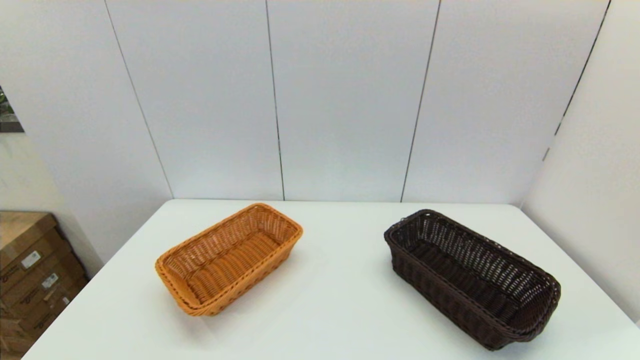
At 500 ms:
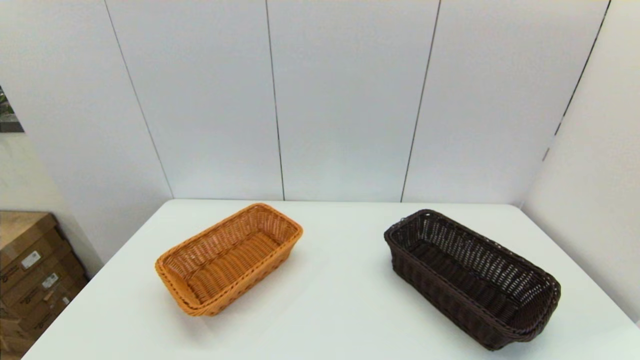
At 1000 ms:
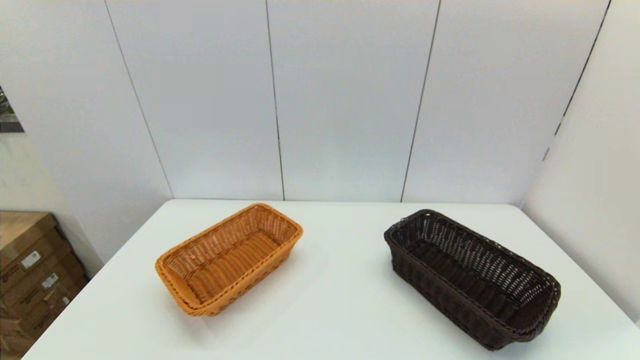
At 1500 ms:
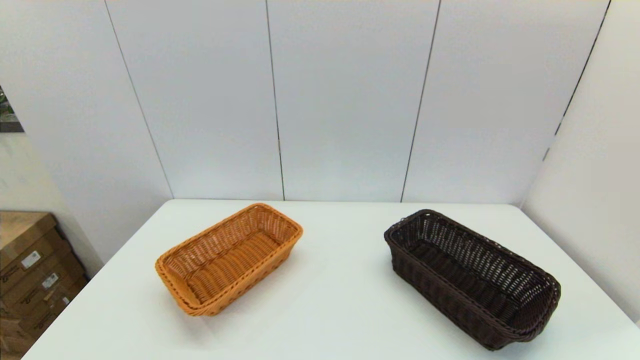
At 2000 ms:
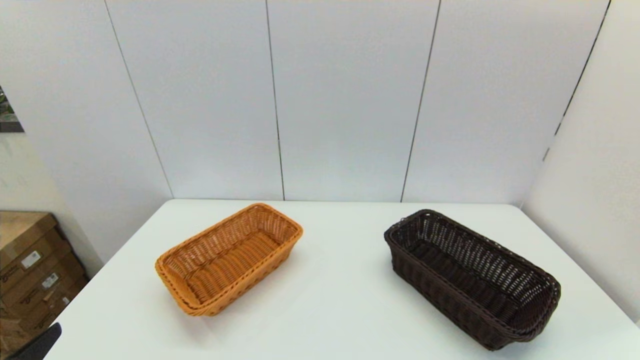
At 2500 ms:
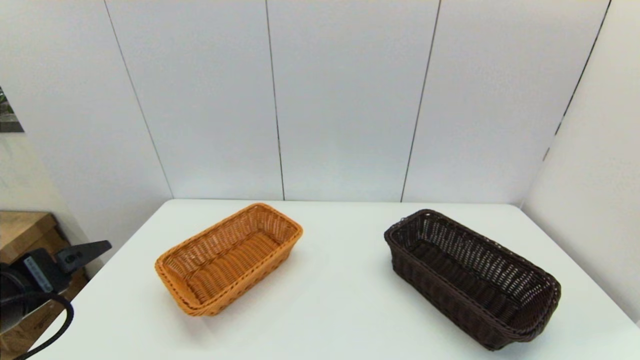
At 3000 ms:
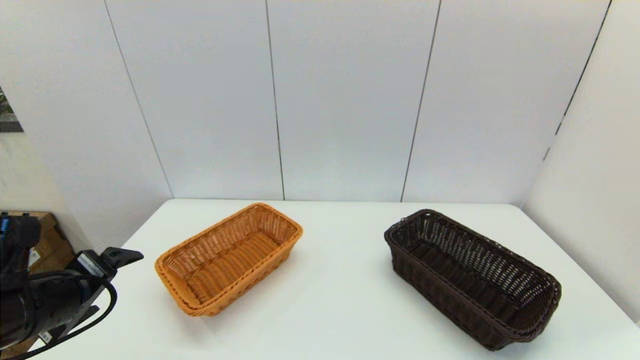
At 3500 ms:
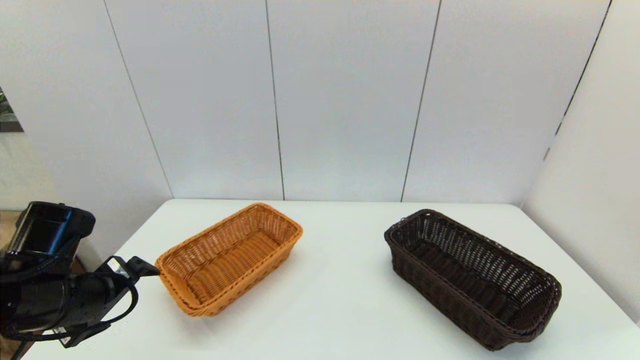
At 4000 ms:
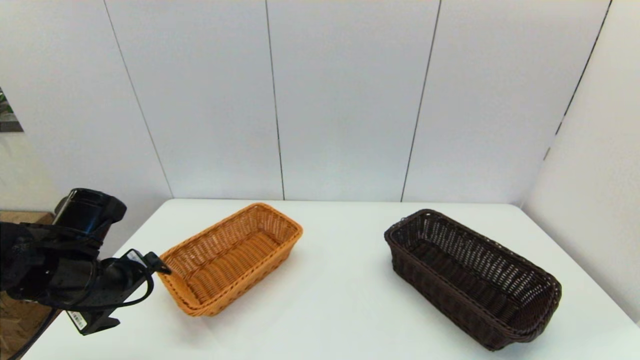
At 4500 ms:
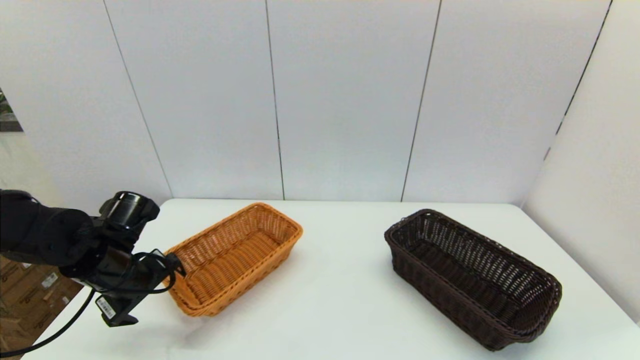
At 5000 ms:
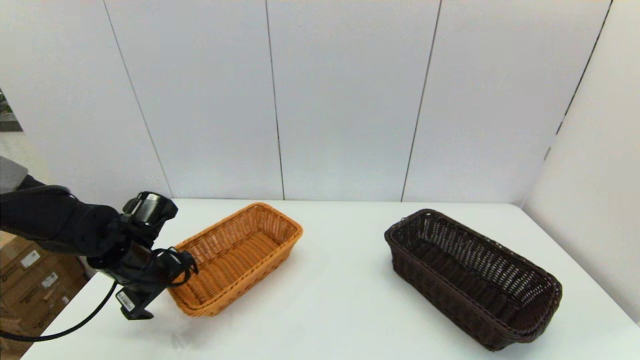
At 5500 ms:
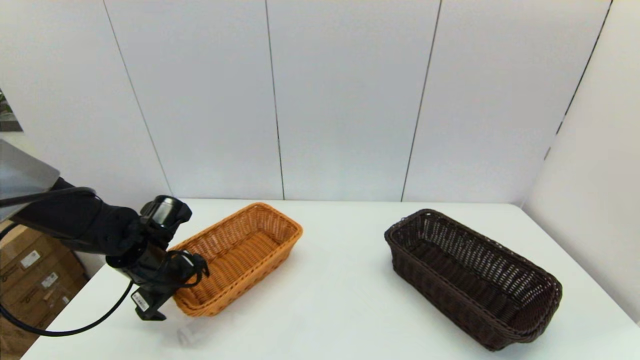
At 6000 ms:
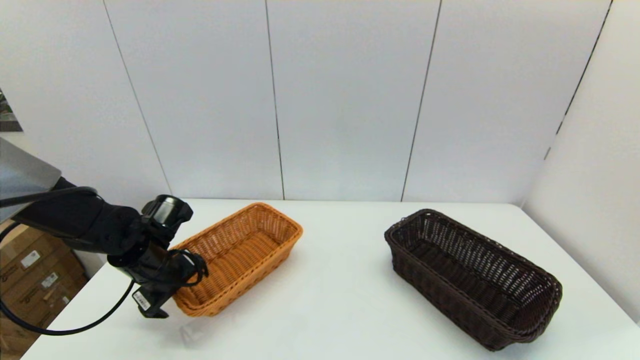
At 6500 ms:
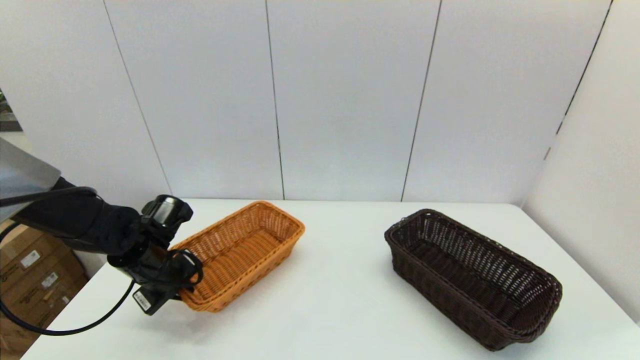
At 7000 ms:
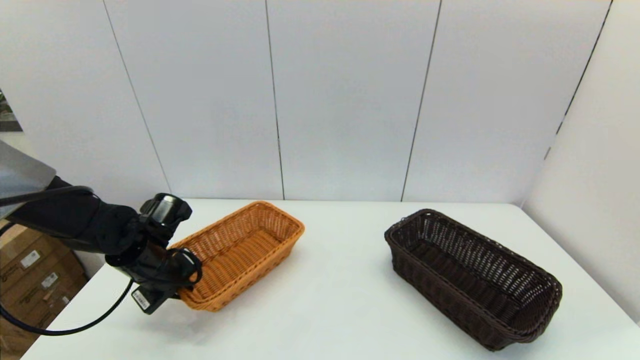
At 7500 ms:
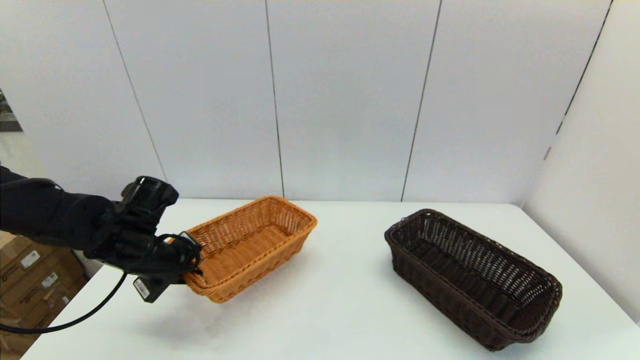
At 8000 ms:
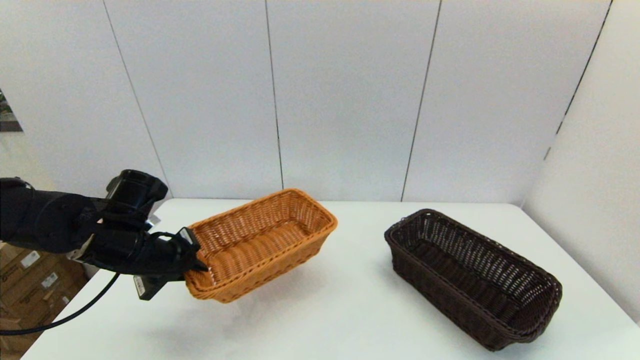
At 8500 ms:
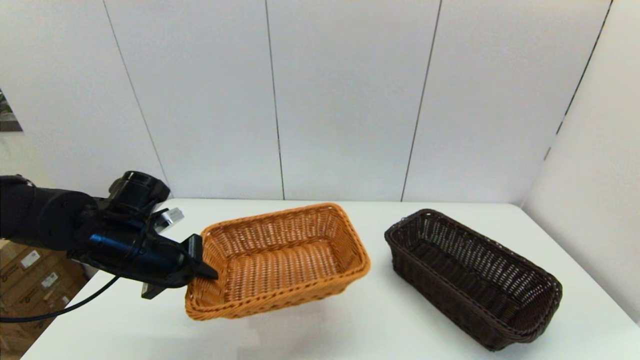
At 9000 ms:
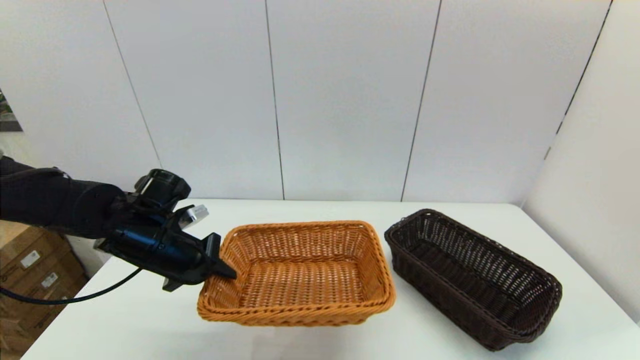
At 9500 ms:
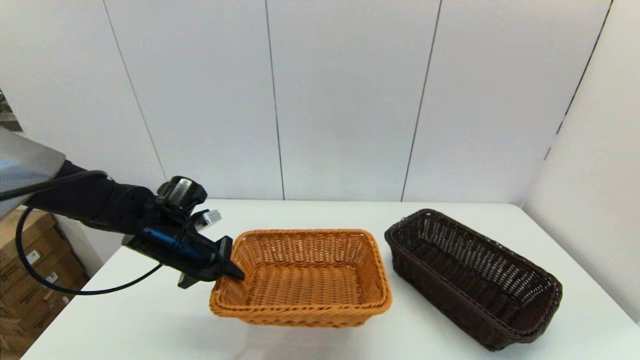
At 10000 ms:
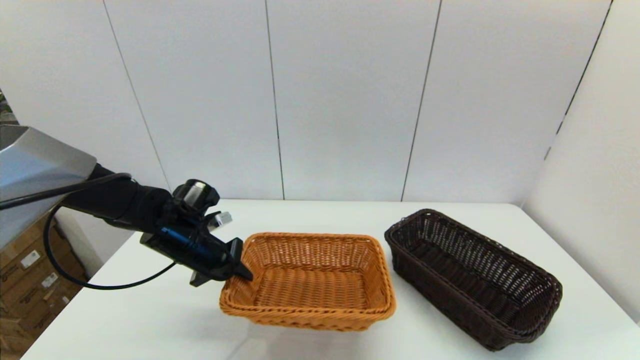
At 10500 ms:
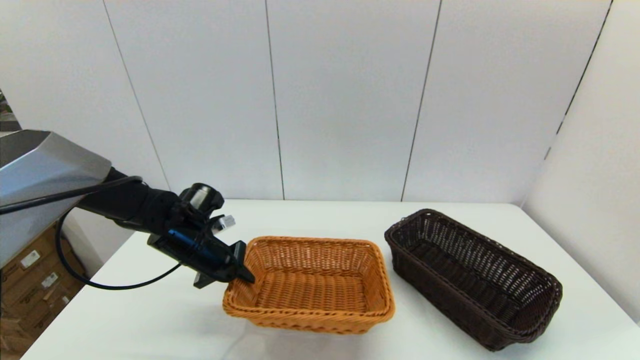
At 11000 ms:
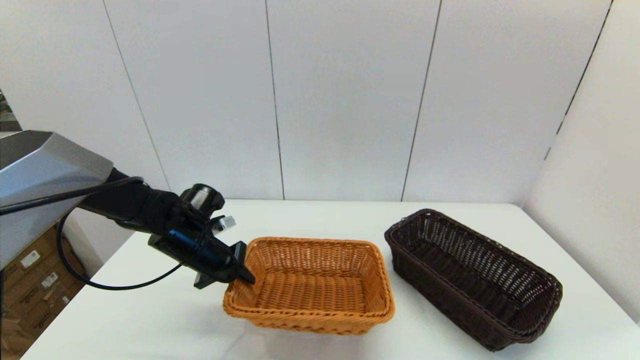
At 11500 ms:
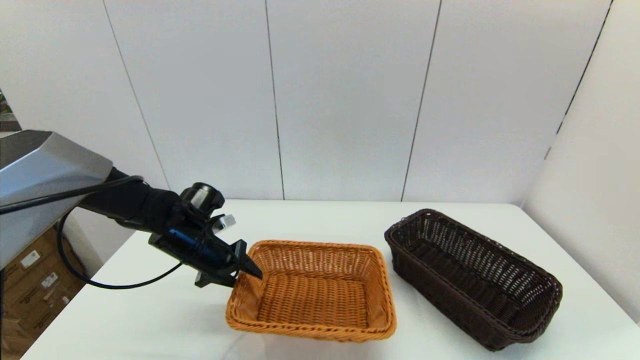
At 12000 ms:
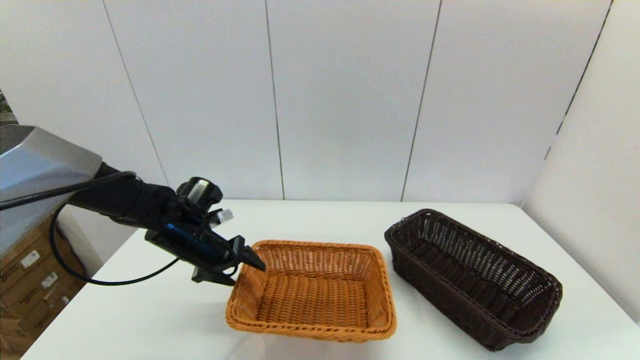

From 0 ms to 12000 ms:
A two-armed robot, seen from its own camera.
Task of the whole recording: stack a basket on top of another basket.
Step, from 2000 ms to 7000 ms: Grasp the light basket with the left gripper.
From 2000 ms to 4000 ms: The left gripper moves forward, approximately 20 cm.
From 4000 ms to 6000 ms: The left gripper moves forward and downward, roughly 10 cm.
From 6000 ms to 8000 ms: The left gripper goes some 5 cm upward, and closes.
From 8000 ms to 10000 ms: The left gripper moves forward, some 5 cm.
From 10000 ms to 12000 ms: The left gripper opens its fingers.

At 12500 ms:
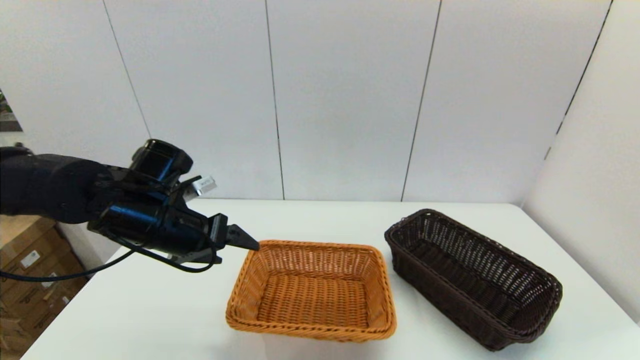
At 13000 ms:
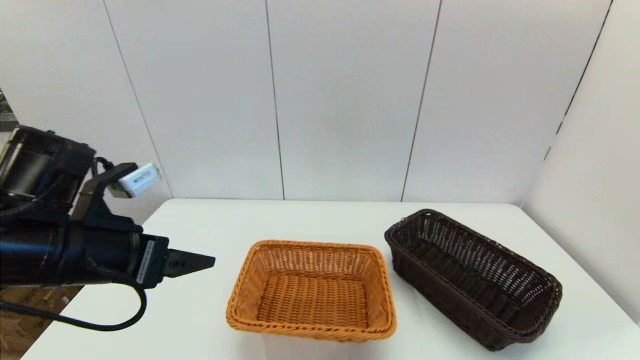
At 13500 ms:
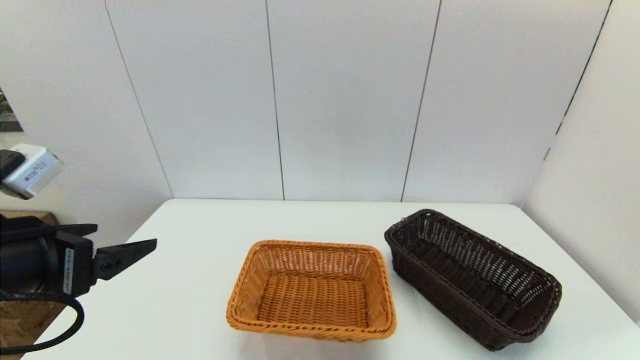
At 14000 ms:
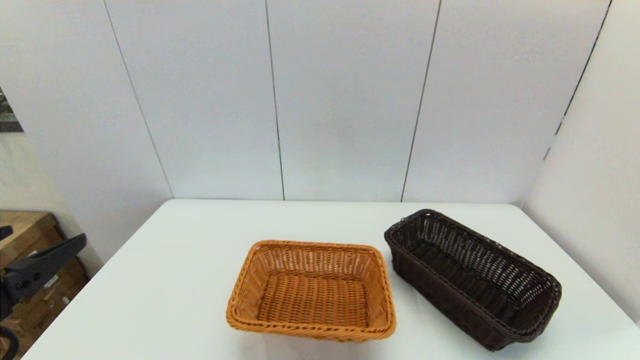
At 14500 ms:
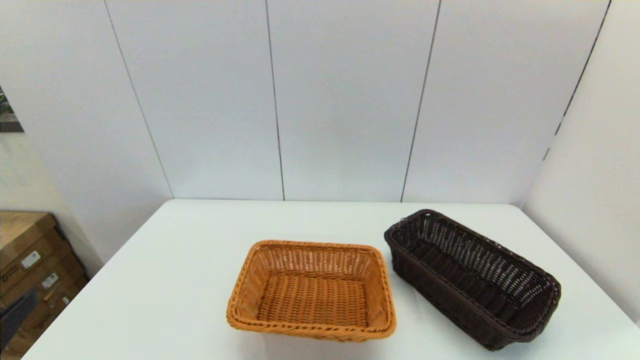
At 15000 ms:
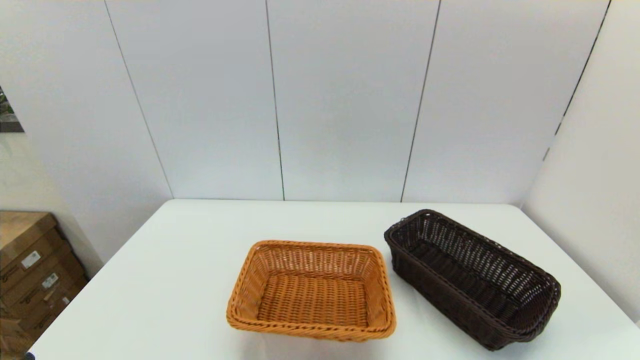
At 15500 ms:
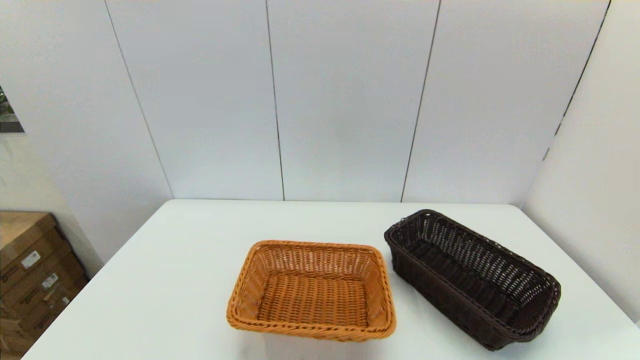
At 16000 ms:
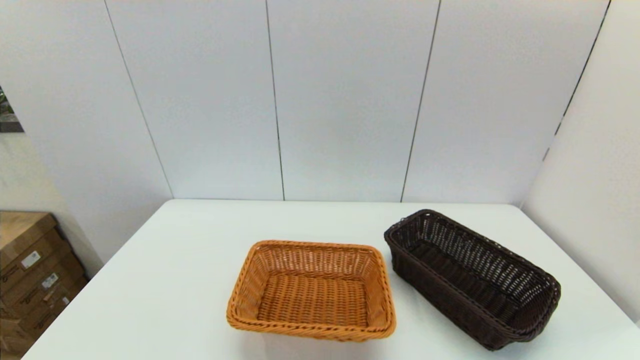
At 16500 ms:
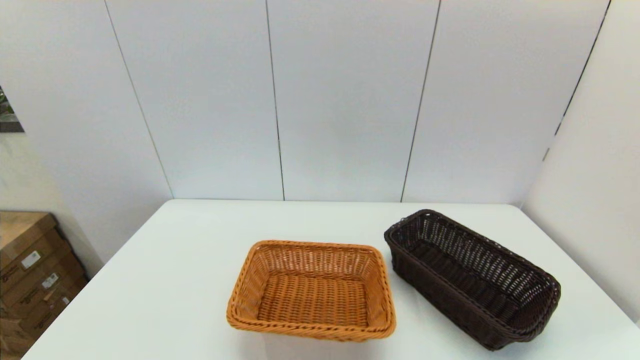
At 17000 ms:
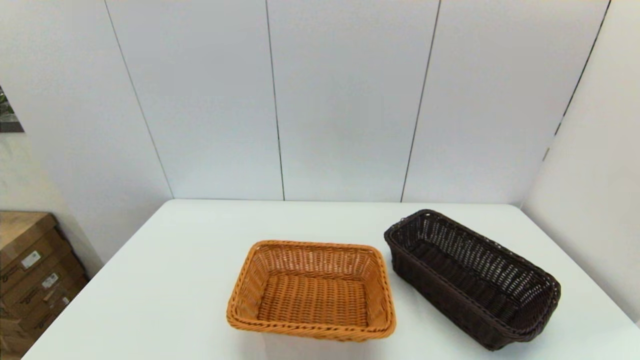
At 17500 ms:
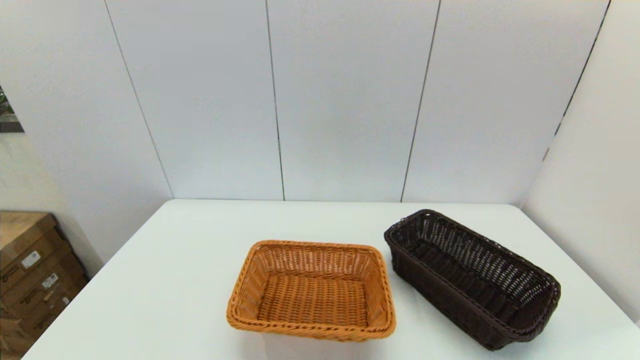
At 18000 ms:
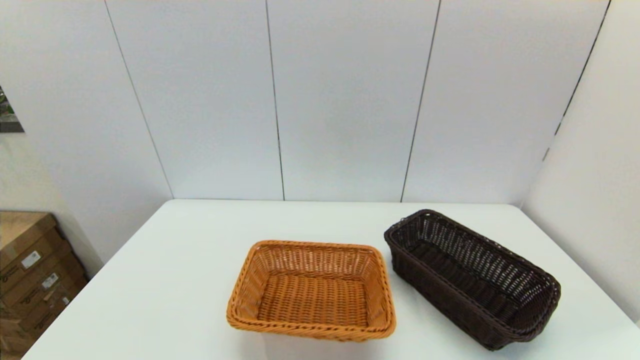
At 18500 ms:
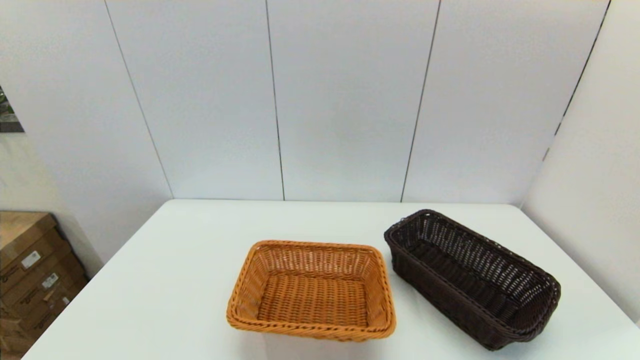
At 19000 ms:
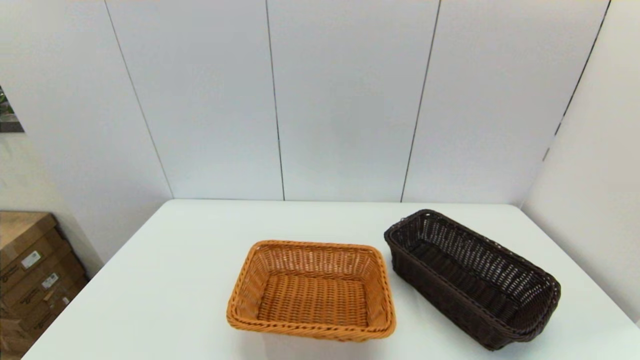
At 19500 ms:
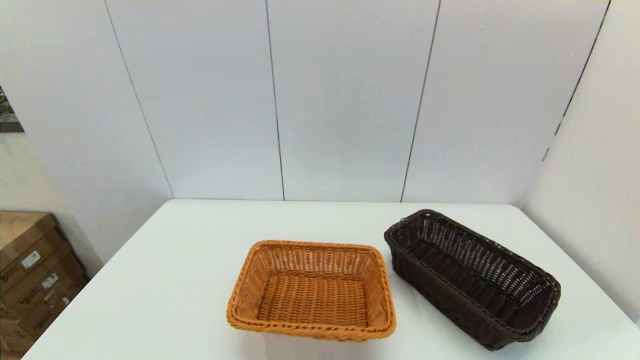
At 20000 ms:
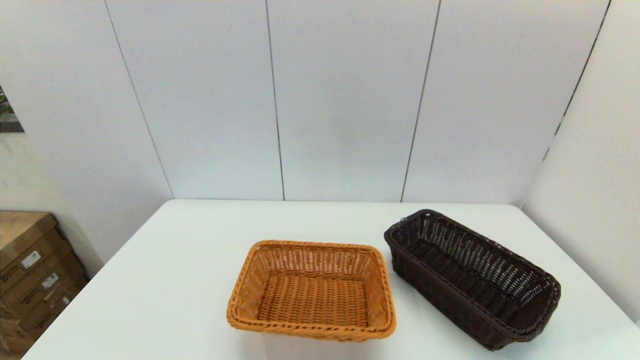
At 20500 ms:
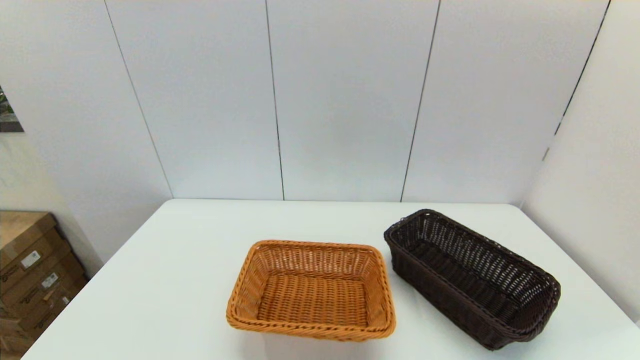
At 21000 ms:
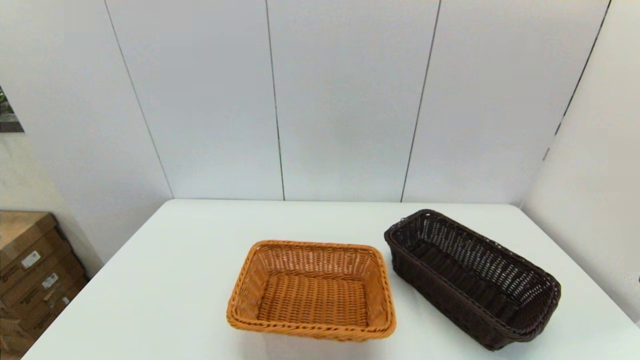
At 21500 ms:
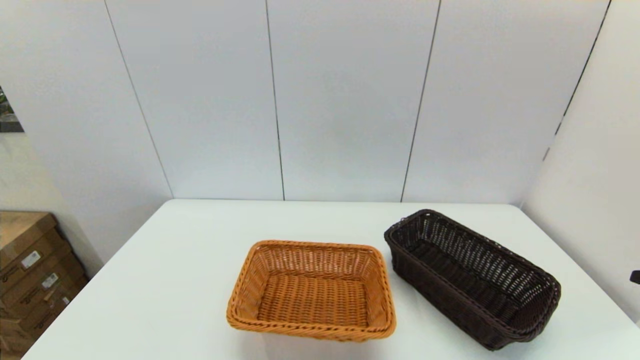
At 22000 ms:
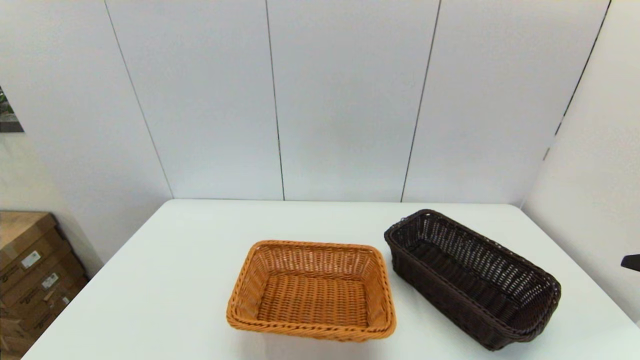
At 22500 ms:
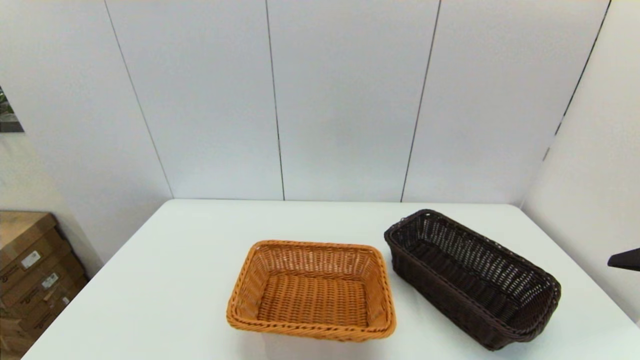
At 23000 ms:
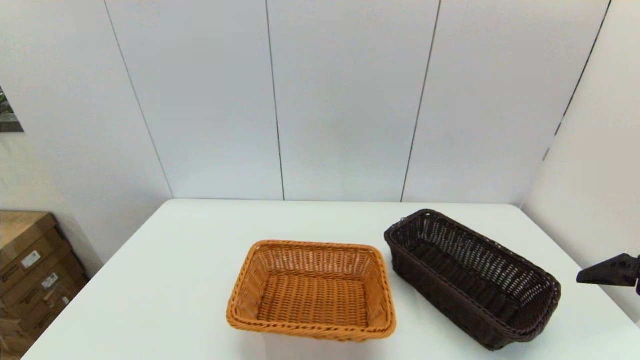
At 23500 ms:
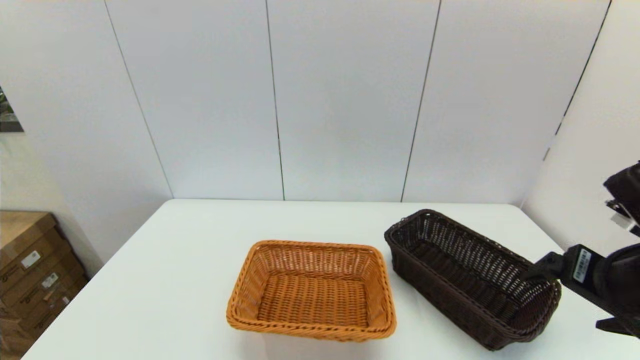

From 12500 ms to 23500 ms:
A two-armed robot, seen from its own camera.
Task of the whole recording: stack a basket on top of another basket.
From 12500 ms to 14500 ms: The left gripper travels backward by roughly 25 cm.
From 16000 ms to 18000 ms: Both grippers stay put.
From 21500 ms to 23500 ms: The right gripper travels forward by roughly 10 cm.
